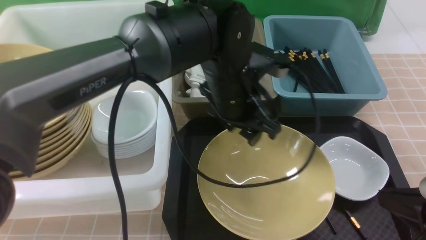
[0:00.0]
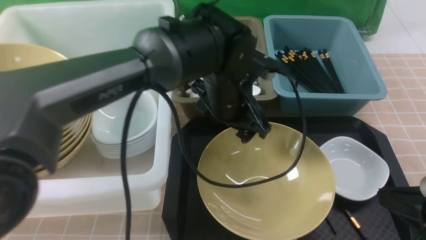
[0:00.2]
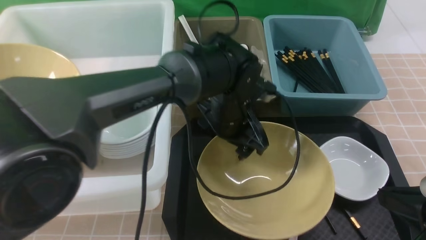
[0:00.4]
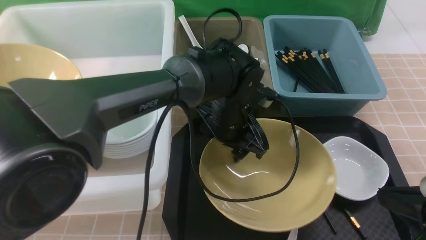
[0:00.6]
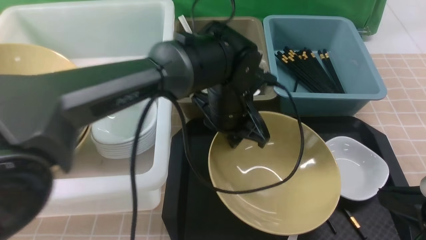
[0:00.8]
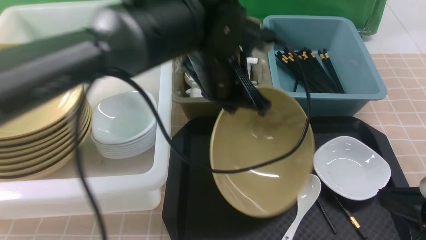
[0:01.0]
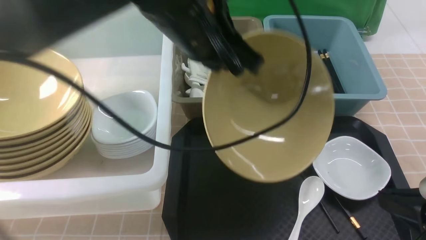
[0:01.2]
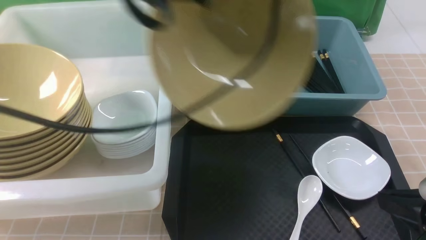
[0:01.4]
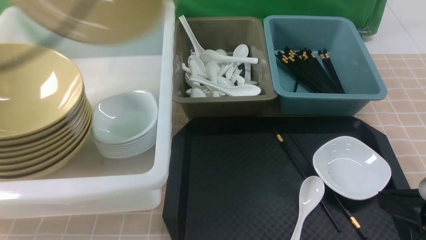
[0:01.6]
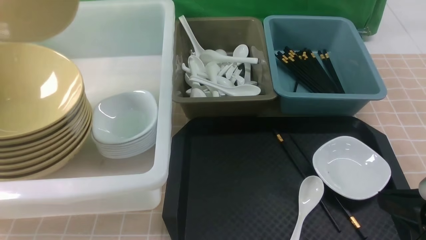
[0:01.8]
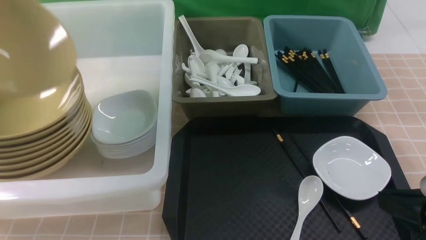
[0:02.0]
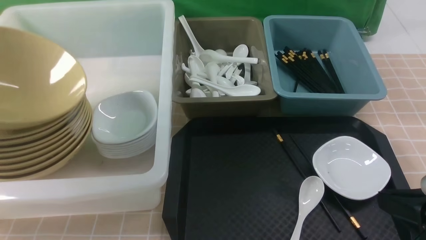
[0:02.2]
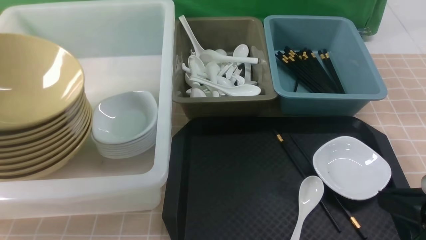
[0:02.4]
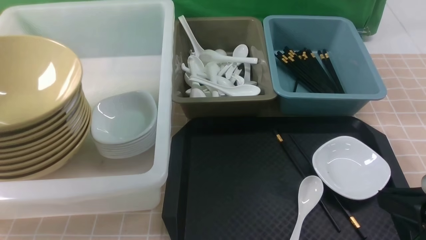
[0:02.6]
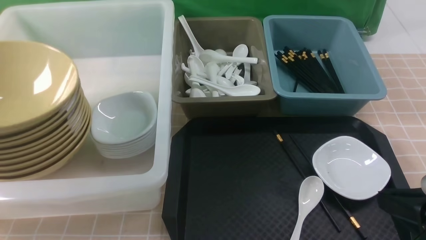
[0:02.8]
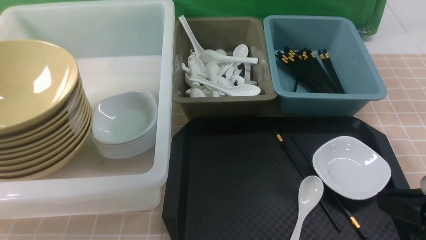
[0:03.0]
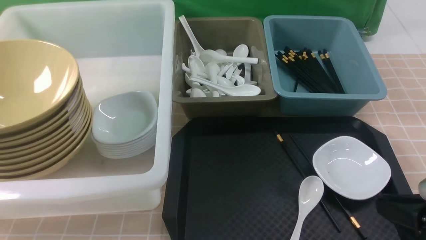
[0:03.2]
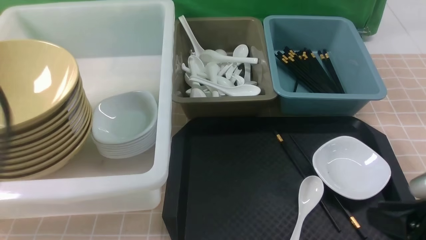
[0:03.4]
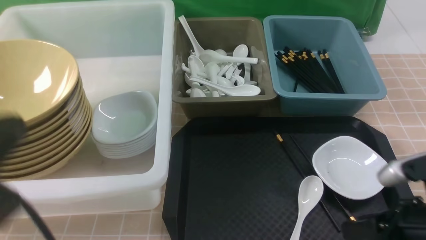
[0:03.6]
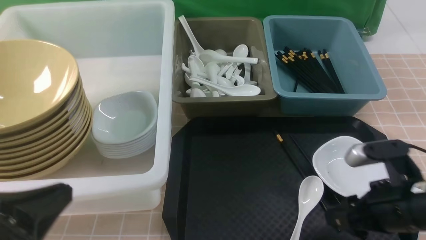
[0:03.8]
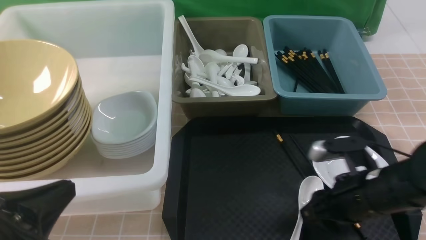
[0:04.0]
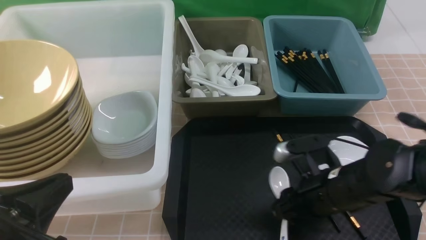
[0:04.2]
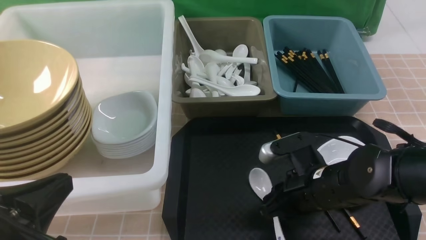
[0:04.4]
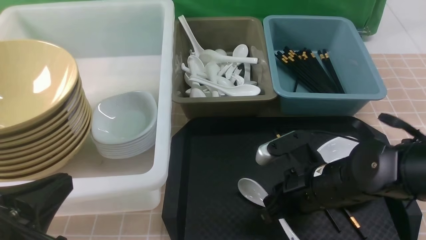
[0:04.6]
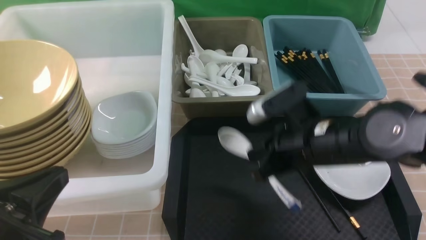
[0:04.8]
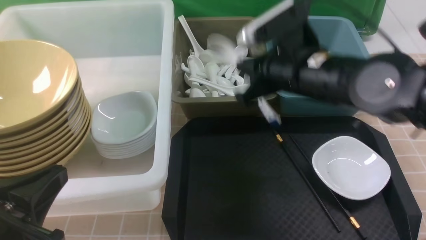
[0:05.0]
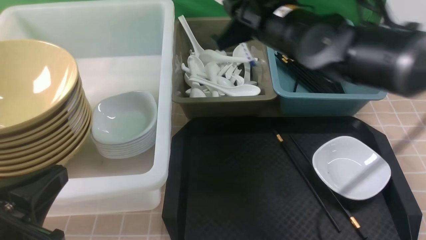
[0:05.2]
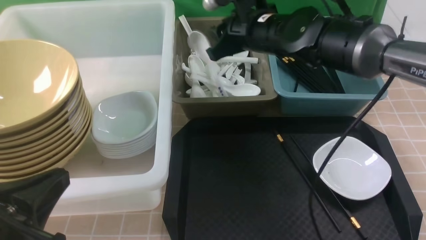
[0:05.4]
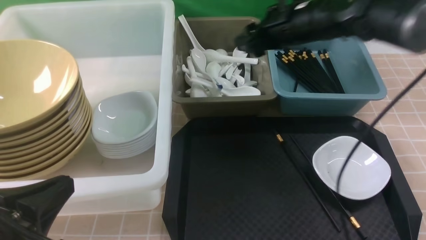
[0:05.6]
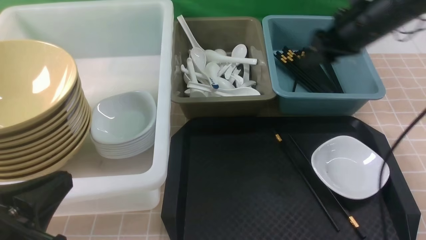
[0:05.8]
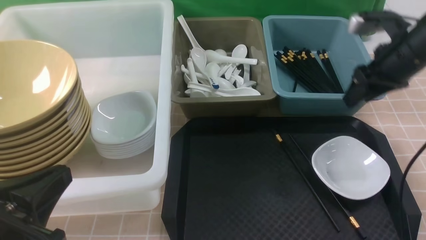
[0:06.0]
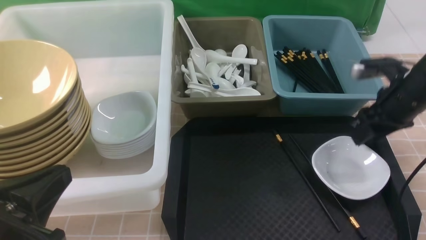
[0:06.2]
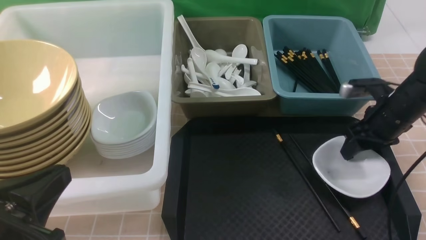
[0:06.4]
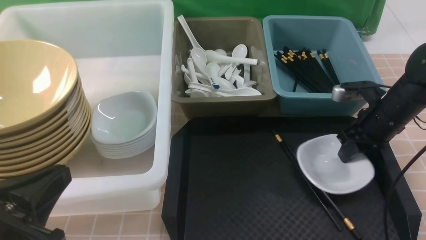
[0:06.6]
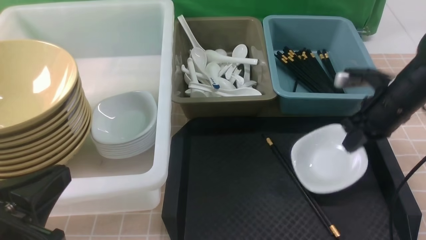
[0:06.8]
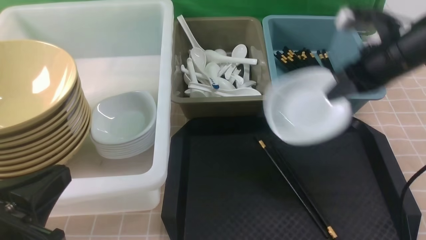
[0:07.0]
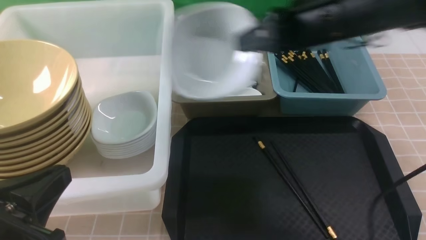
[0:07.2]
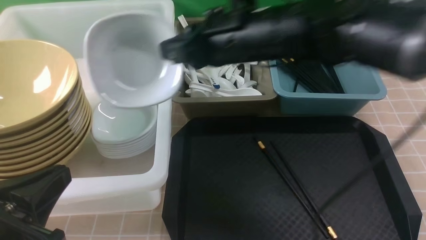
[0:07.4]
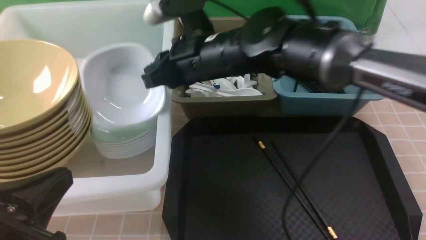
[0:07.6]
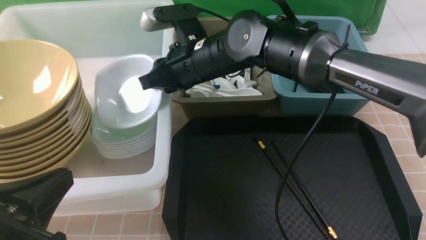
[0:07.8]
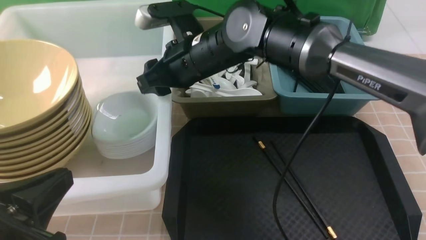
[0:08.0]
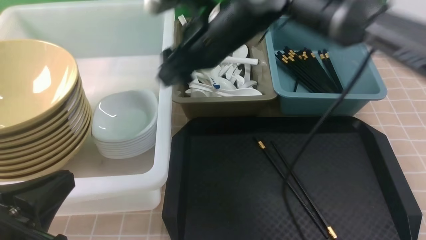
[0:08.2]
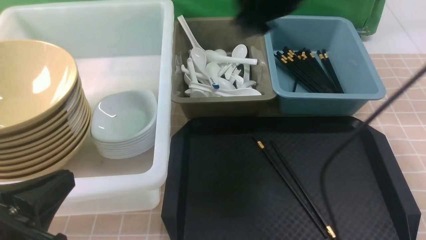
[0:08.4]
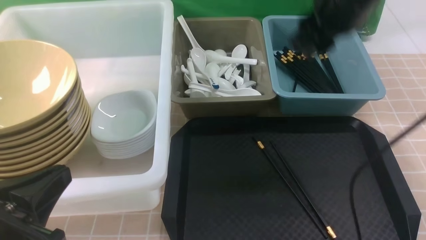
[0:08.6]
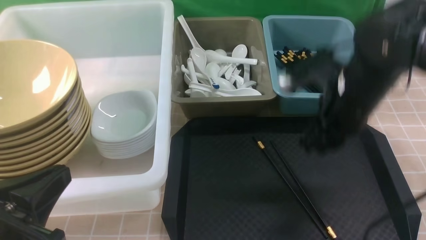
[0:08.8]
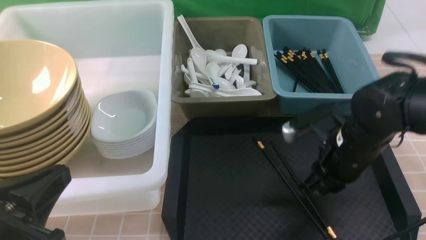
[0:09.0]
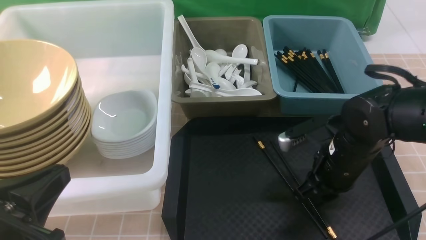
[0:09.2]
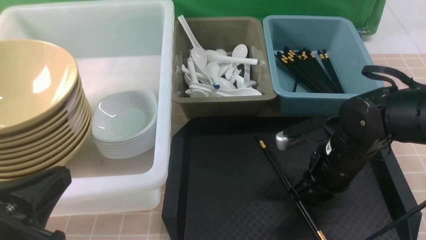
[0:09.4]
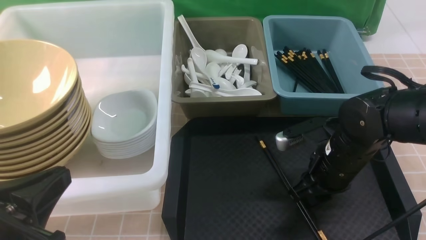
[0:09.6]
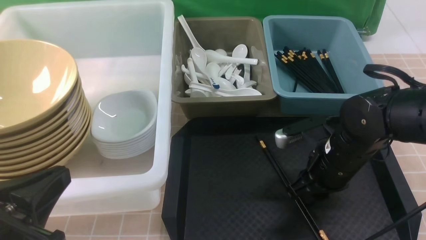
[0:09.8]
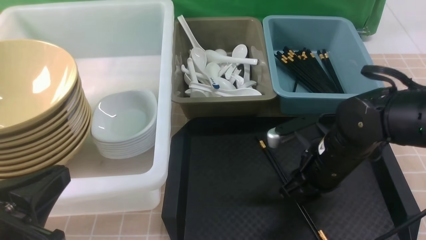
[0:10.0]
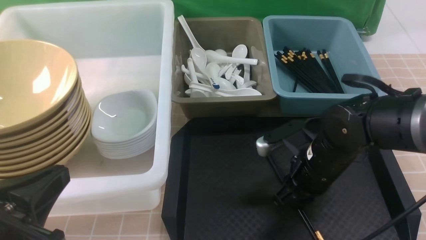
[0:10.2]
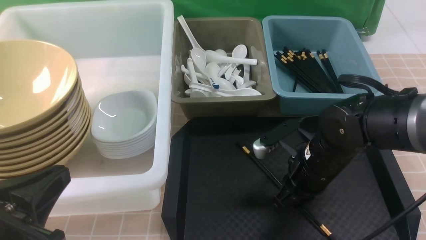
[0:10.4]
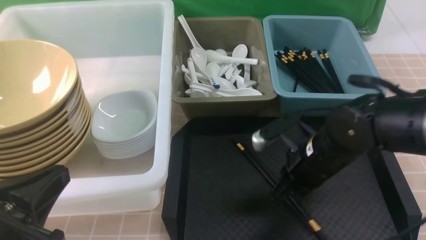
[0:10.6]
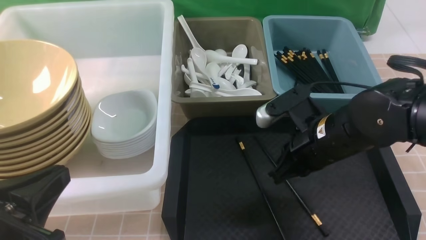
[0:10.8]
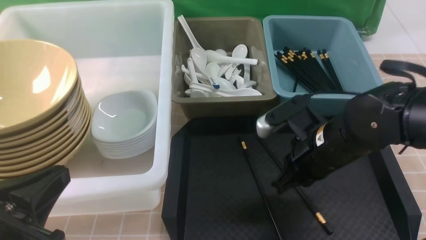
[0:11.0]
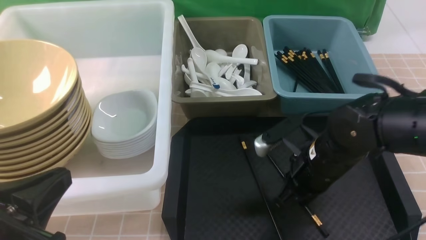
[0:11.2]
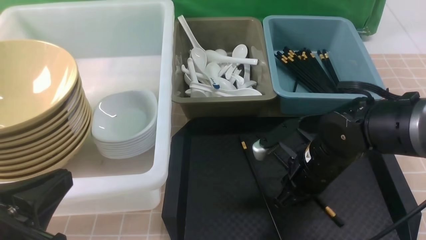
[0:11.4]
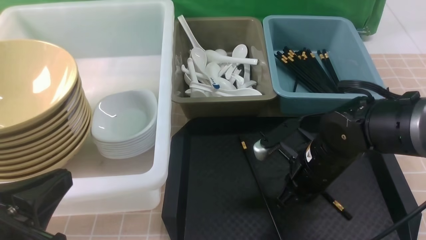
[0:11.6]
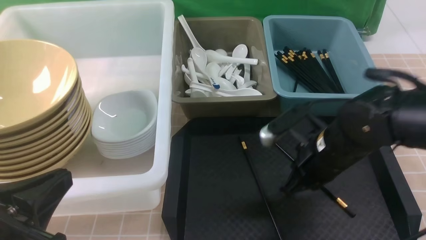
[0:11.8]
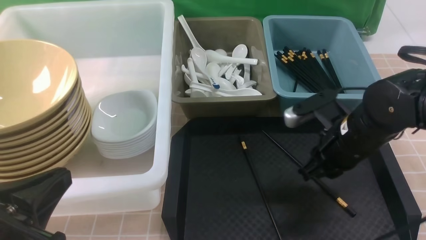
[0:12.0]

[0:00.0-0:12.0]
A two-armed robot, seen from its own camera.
Task of the whole recording: on brown table put chopsticks spoon bowls plates into blue grey white boxes.
Step, 0:00.8 to 0:02.6: use the left arm to put the noodle bowl into the large storage box on the left.
Step, 0:02.8 to 0:04.8: use the right arm to grab the soup spoon in the middle.
Step, 0:05.0 to 0:05.8: use the right arm to put the soup spoon into the small storage box in the middle.
Step, 0:06.0 to 0:06.8: use the right arm to grab the plate.
Step, 0:07.0 to 0:08.2: use the right arm to put the plate into the large storage box on the left.
0:00.0 to 0:01.6: The left gripper is displaced upward and to the left by about 35 cm, and closes.
0:01.6 to 0:03.0: The left gripper travels to the left and downward by roughly 15 cm, and opens its fingers.
0:03.0 to 0:04.4: The right gripper goes some 20 cm to the left, forward and downward, and opens and closes again; the left gripper moves downward, backward and to the right, approximately 20 cm, and closes.
0:04.4 to 0:06.0: The right gripper travels forward, to the right and upward by some 25 cm, and opens up.
0:06.0 to 0:07.6: The right gripper shifts about 30 cm to the left, and closes.
0:07.6 to 0:09.0: The right gripper is displaced to the right, downward and backward by some 20 cm, and opens, then closes once more.
0:09.0 to 0:12.0: The grippers move only a little.

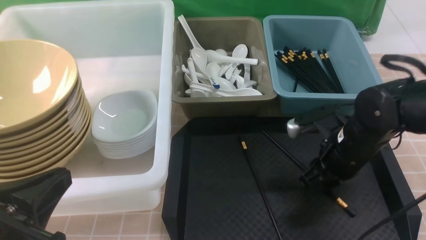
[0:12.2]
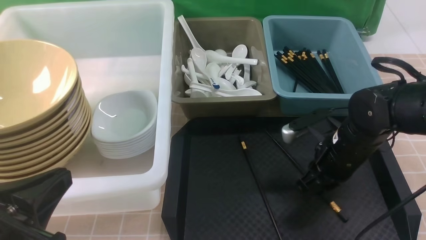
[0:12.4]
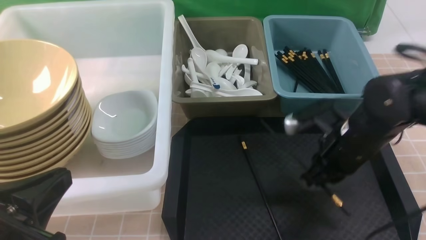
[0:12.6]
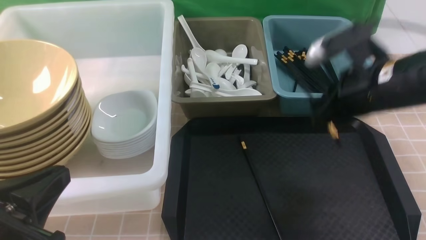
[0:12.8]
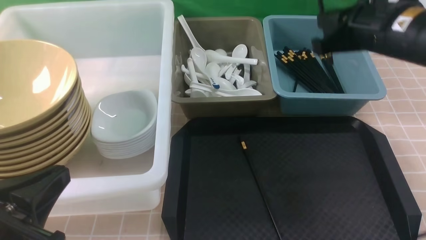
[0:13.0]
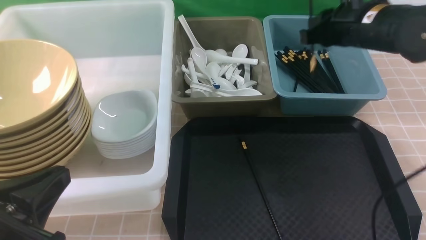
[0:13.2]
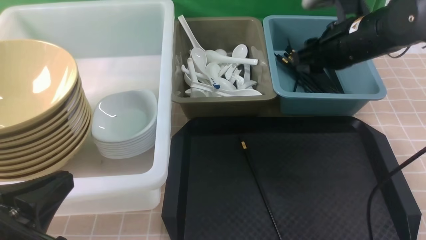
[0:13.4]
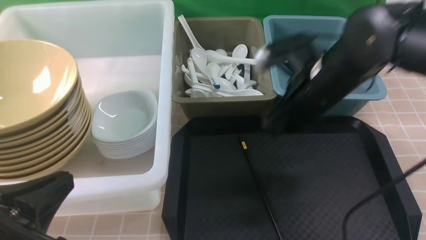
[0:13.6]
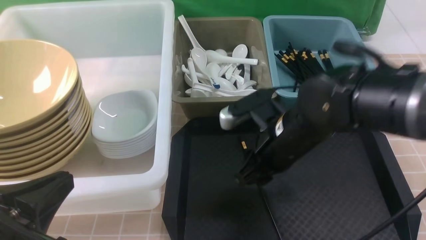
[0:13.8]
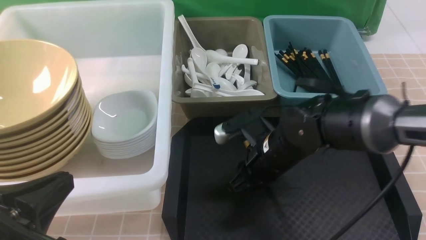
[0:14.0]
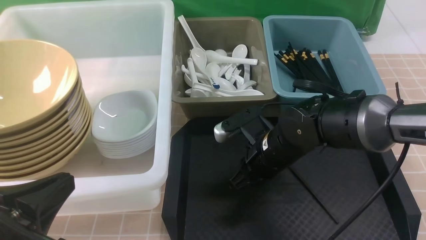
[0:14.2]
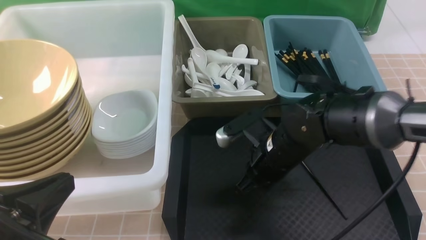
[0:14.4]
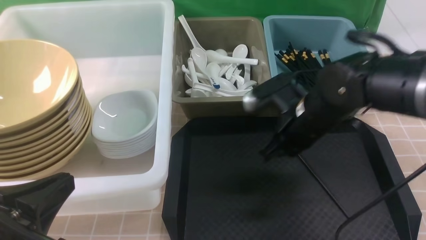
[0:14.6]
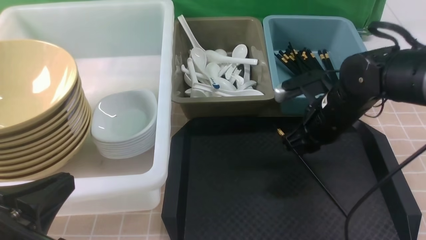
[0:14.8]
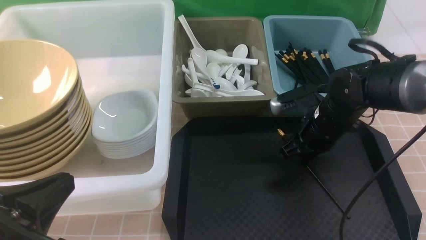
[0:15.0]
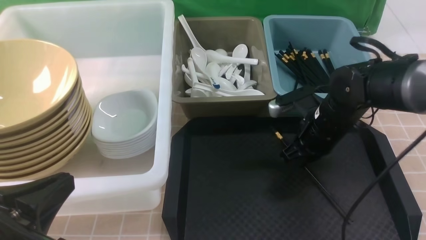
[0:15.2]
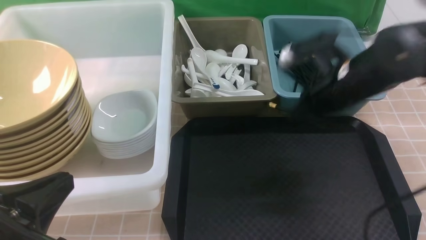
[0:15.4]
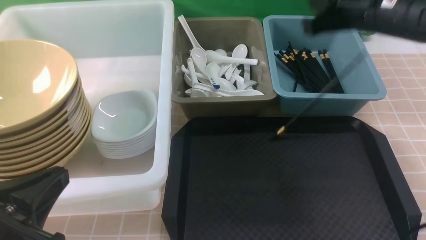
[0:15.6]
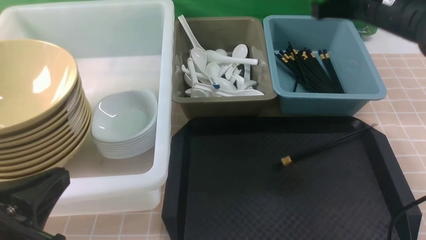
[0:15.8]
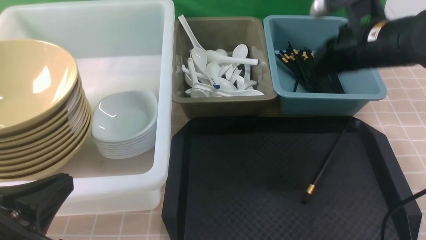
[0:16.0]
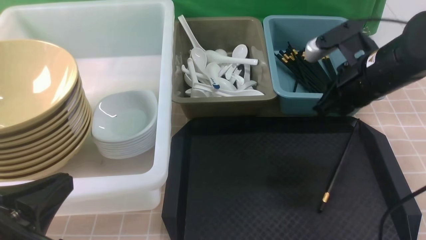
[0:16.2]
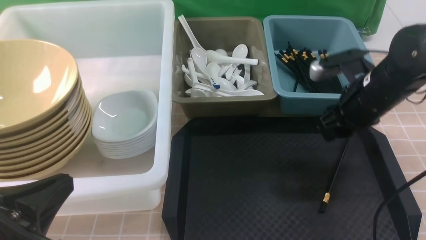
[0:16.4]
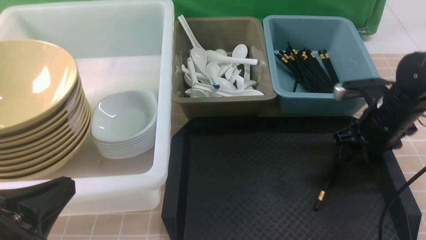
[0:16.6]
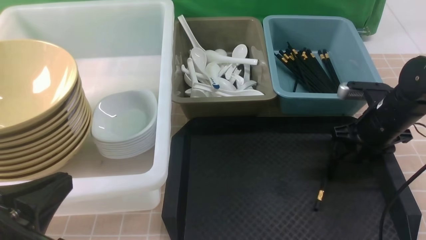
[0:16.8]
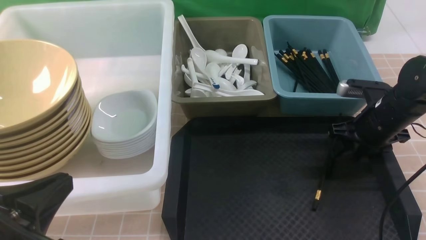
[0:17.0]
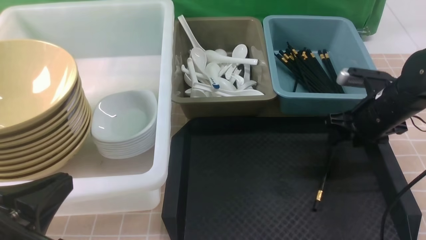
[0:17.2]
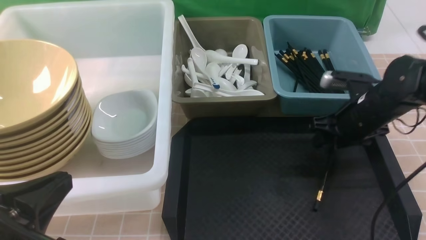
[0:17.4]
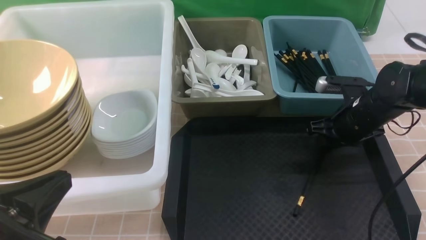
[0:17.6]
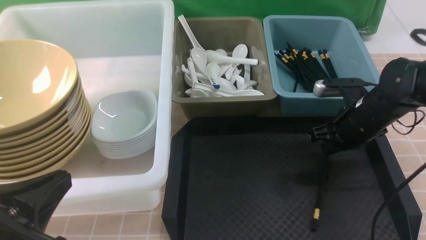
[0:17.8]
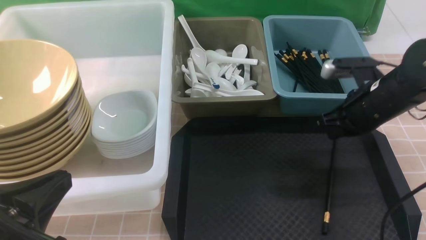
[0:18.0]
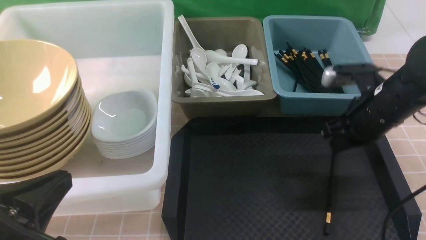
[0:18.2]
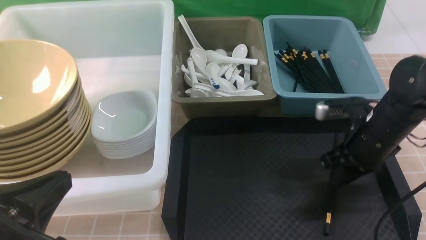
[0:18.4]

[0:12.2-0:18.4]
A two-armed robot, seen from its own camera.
Task of the whole recording: on brown table put chopsticks spoon bowls plates into blue grey white boxes.
Step, 0:12.8 to 0:13.4: use the right arm to put a chopstick into the small storage box on the right.
0:12.2 to 0:13.8: The right gripper heads to the left, covering about 10 cm, and reaches roughly 15 cm upward, then returns.
0:13.8 to 0:15.4: The right gripper goes some 10 cm to the right and upward, and closes.
0:15.4 to 0:16.8: The right gripper heads downward and to the right, covering about 15 cm, and opens up.
0:16.8 to 0:18.4: The right gripper ends up approximately 5 cm from where it was, and closes its fingers.
